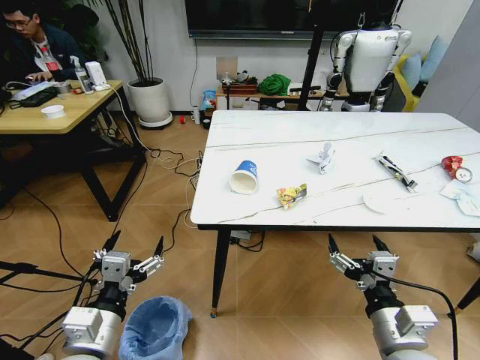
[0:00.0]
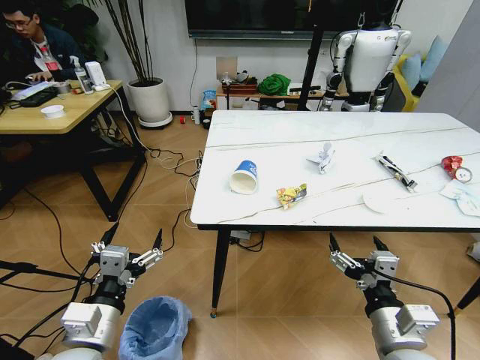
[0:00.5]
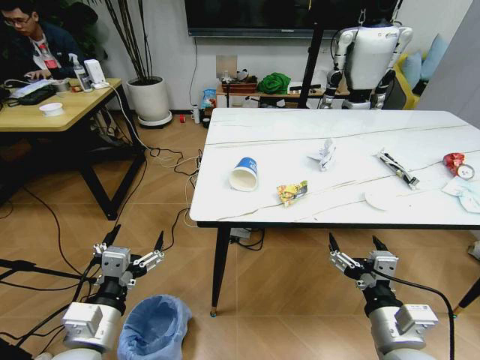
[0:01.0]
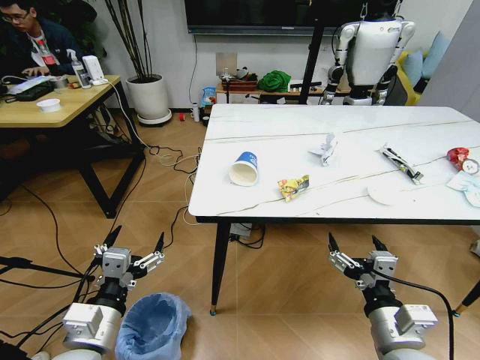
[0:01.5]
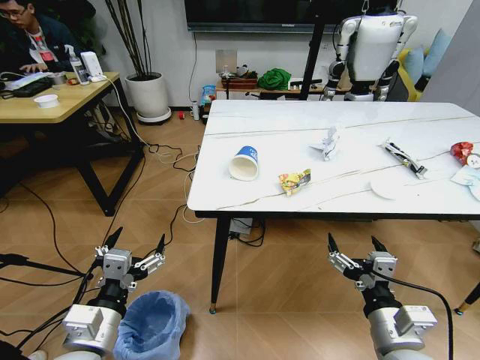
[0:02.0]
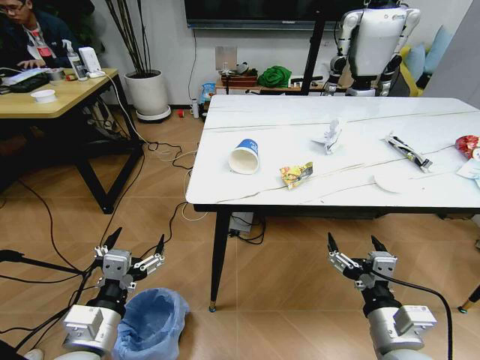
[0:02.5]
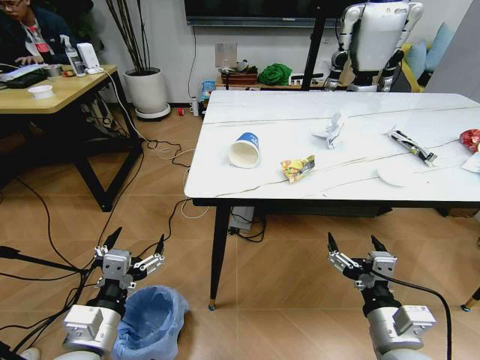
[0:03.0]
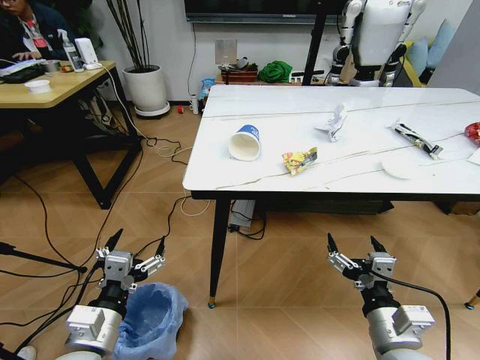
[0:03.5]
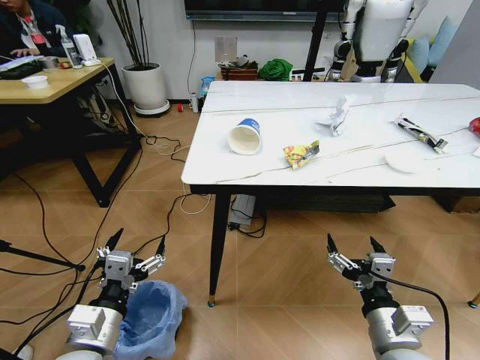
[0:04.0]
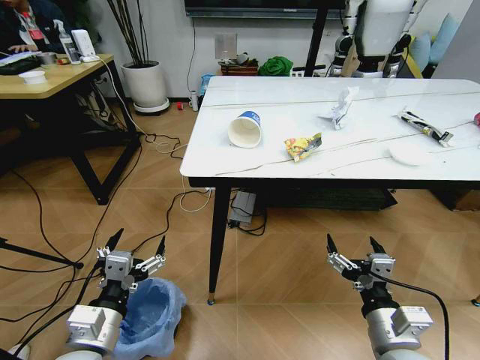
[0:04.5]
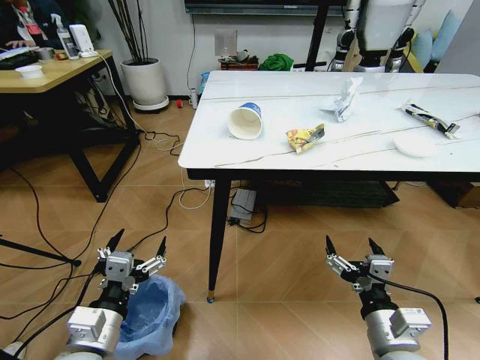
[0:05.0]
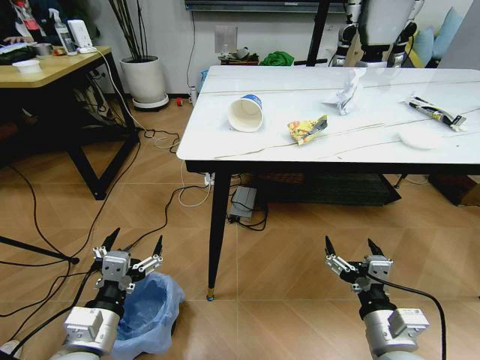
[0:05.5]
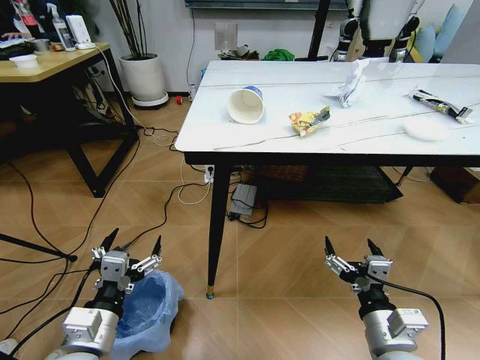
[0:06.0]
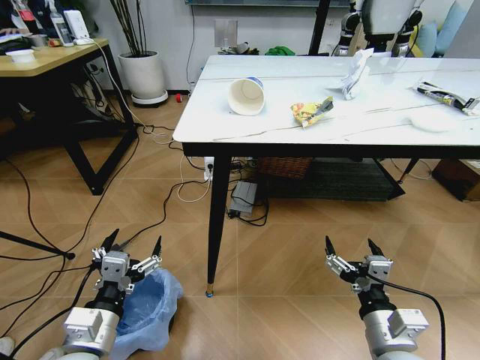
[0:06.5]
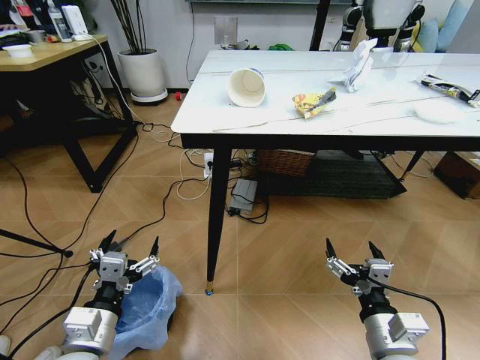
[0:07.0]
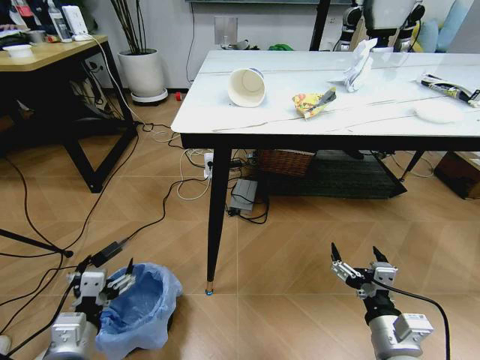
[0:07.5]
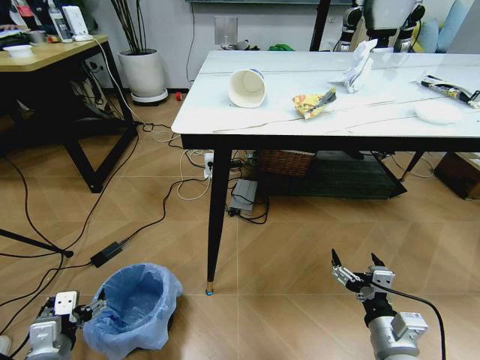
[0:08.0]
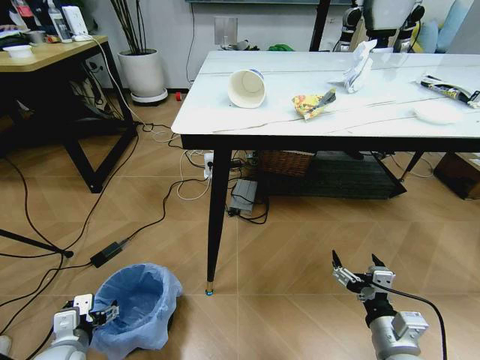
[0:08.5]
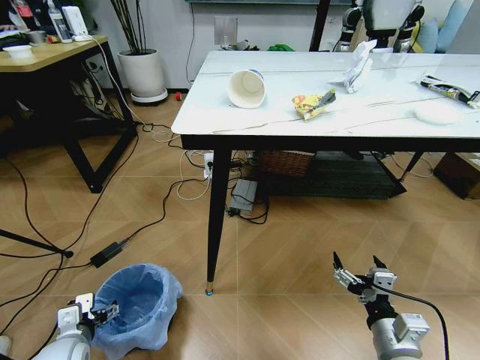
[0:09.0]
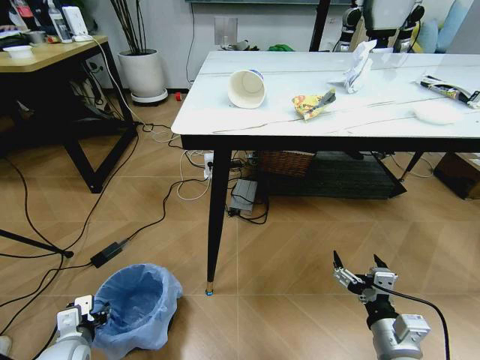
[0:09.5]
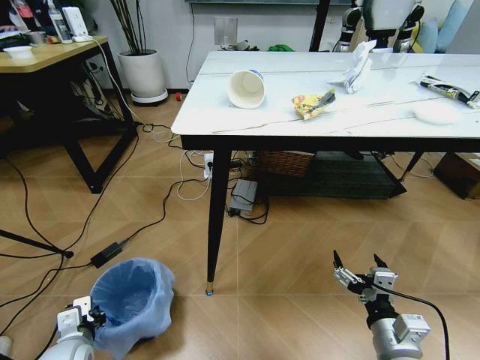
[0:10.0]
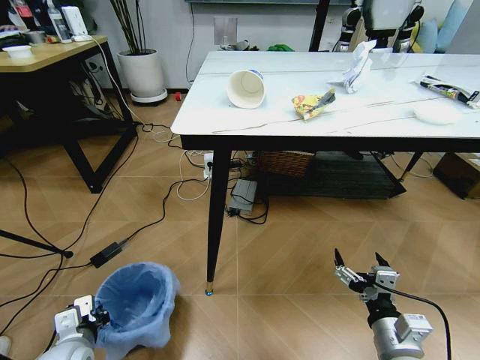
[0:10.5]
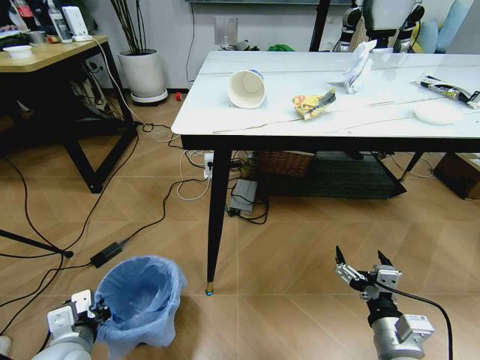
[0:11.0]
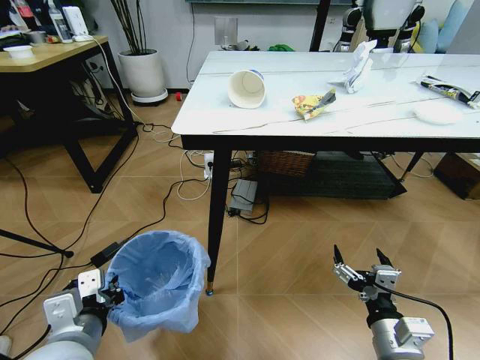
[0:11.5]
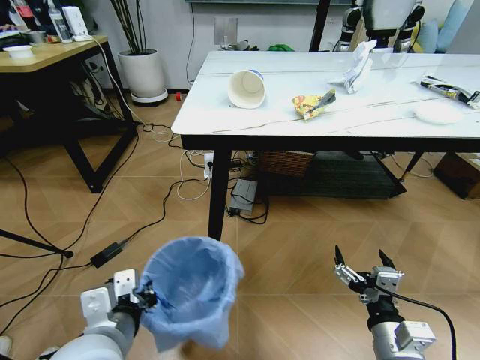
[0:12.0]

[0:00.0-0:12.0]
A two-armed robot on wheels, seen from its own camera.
Task of the whole recording: Pick up the trash bin and place the trash from the table into it.
0:06.0 to 0:08.0: The left gripper heads to the left and downward, covering approximately 15 cm.
0:08.0 to 0:10.0: The left gripper goes roughly 5 cm downward, and closes its fingers.
0:10.0 to 0:12.0: The left gripper shifts some 25 cm upward and to the right.

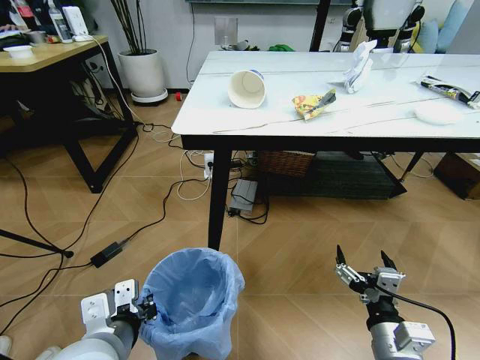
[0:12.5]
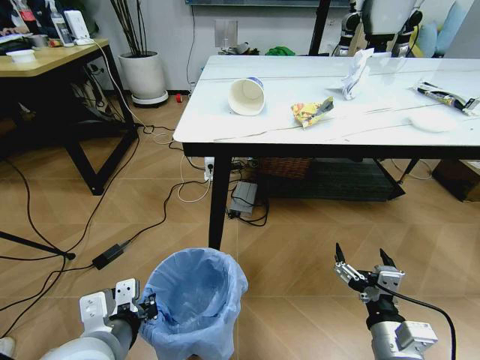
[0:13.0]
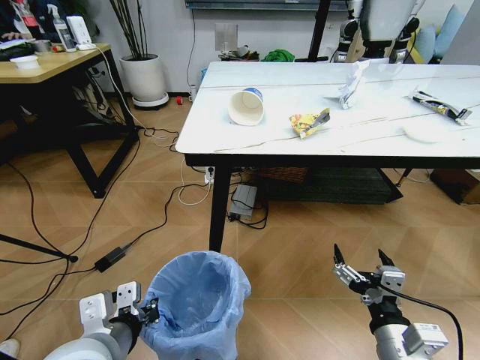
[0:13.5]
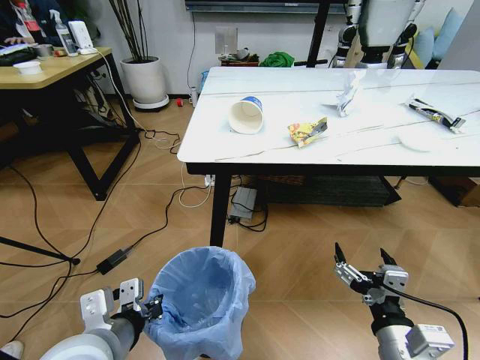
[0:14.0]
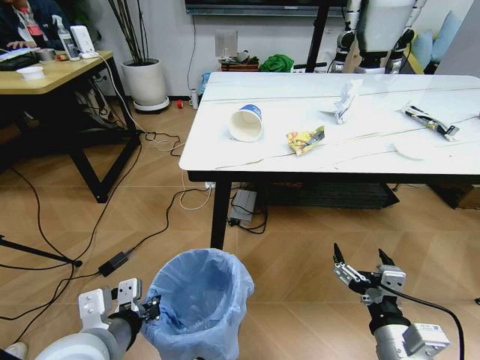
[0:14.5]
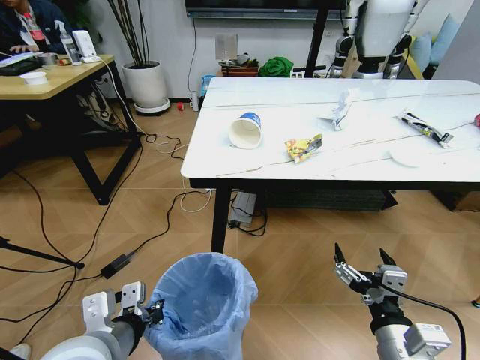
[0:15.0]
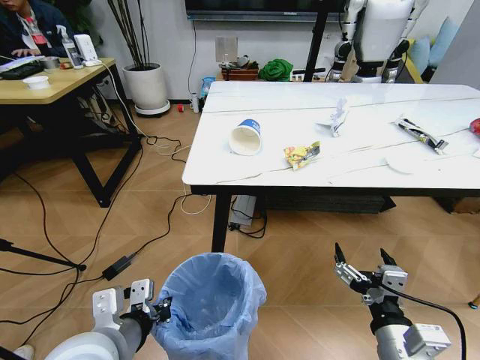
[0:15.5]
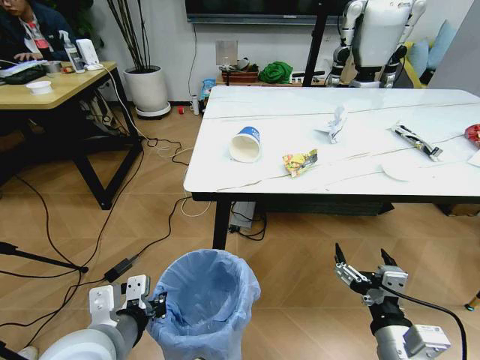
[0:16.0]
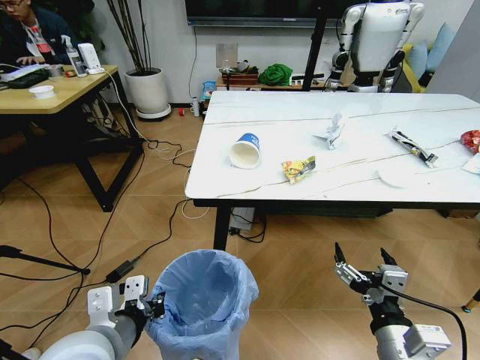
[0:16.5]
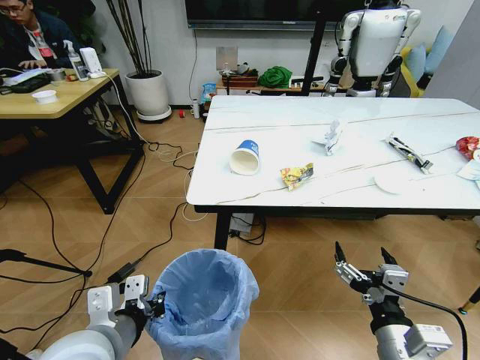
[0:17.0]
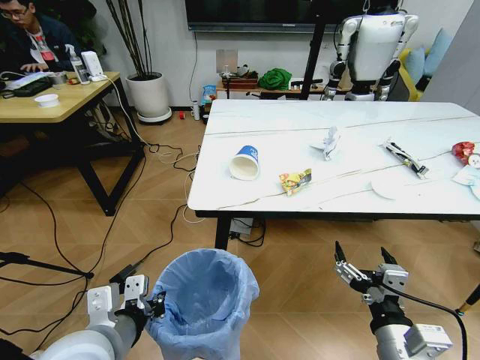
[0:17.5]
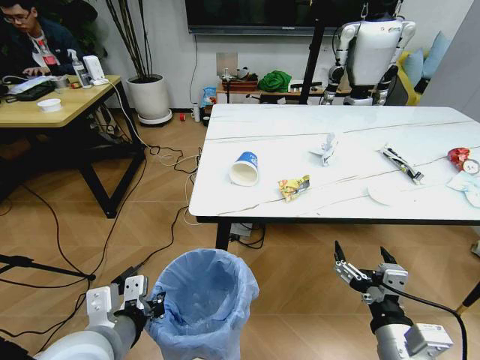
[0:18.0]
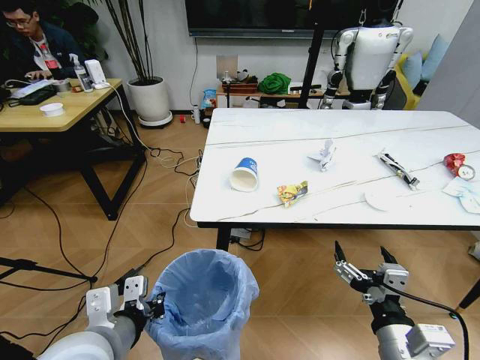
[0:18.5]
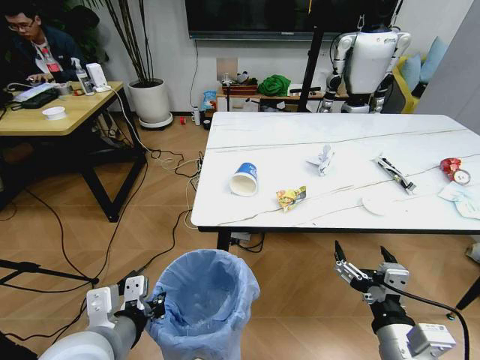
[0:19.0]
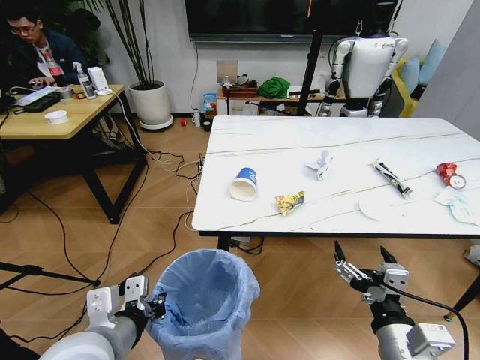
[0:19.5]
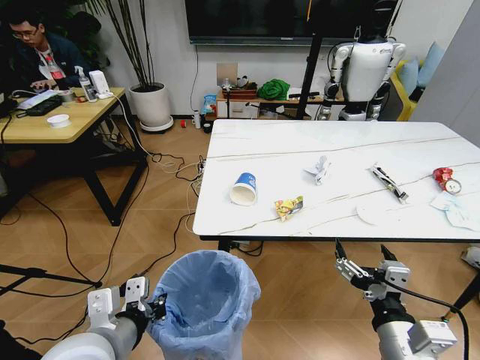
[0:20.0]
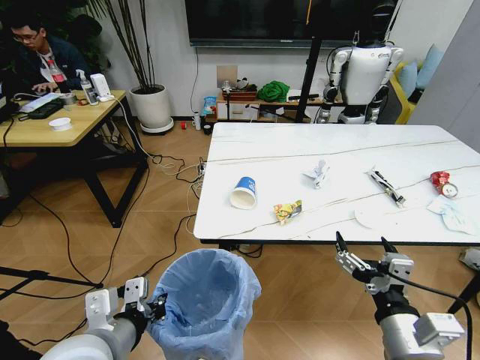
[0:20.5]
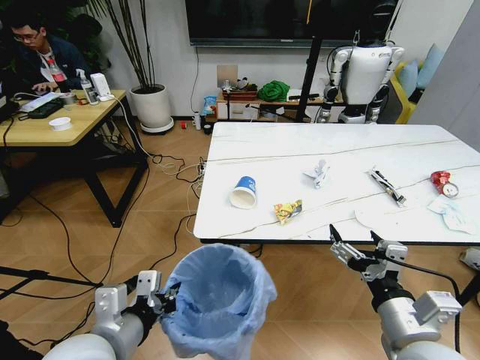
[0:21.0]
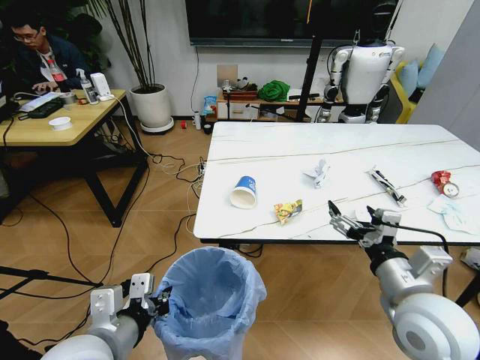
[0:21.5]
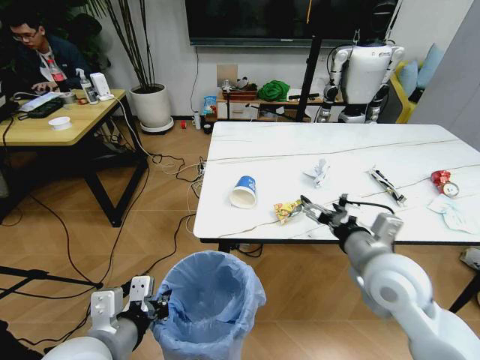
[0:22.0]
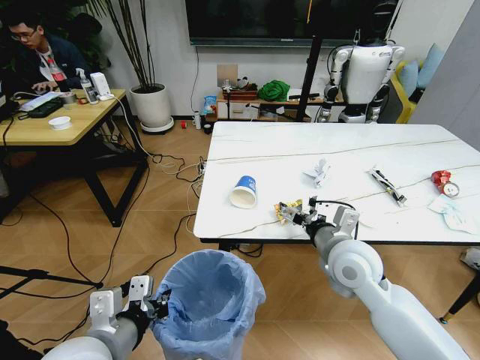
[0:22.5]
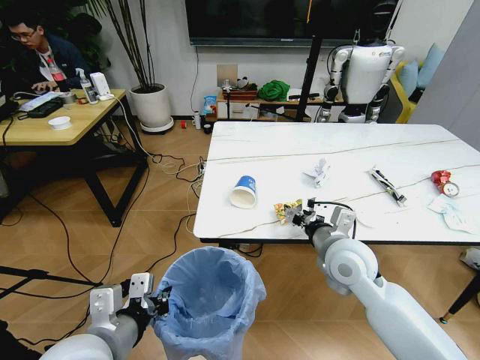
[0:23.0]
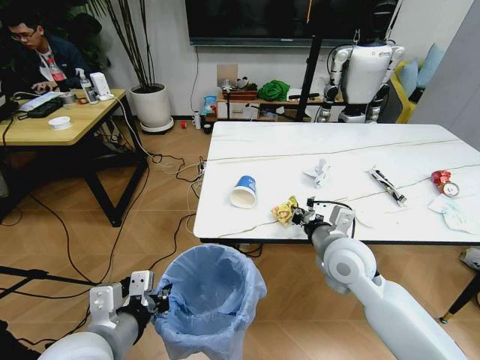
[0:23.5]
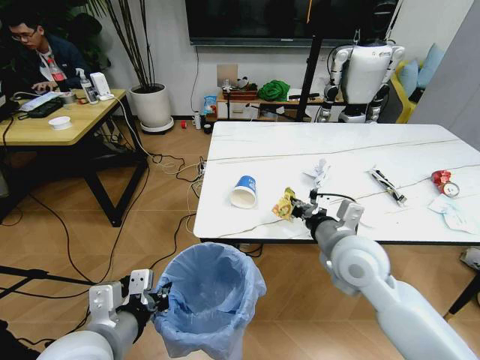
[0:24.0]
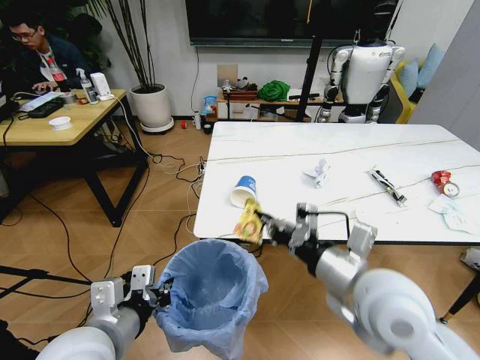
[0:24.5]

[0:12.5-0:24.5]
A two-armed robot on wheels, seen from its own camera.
Task of the whole recording: Pick up the trash bin and place the trash from the table into it.
0:20.5 to 0:22.5: The right gripper is displaced forward by approximately 20 cm.
0:22.5 to 0:24.5: The right gripper goes about 15 cm backward and upward, and closes its fingers.

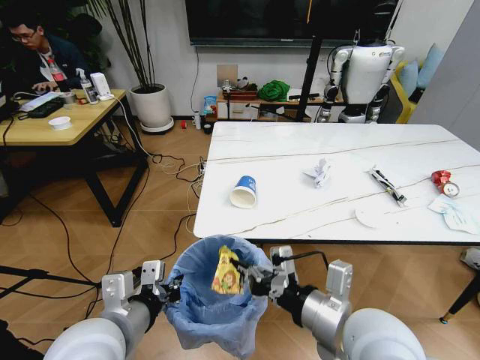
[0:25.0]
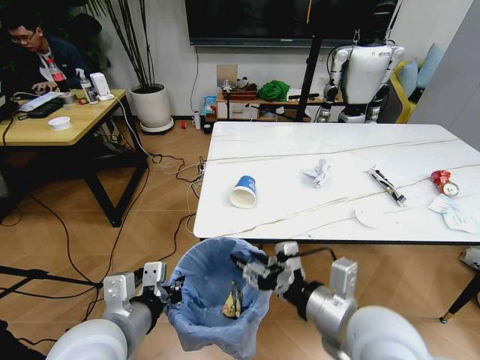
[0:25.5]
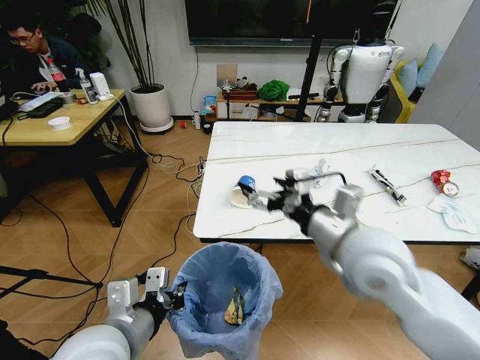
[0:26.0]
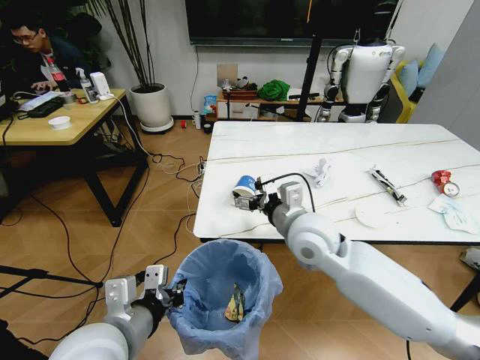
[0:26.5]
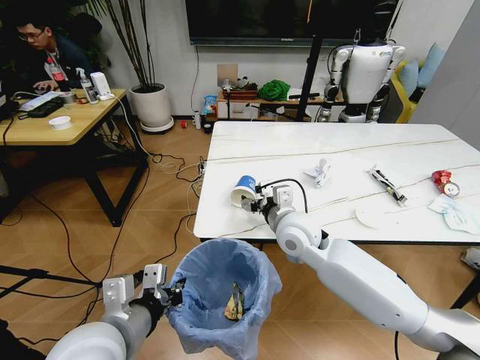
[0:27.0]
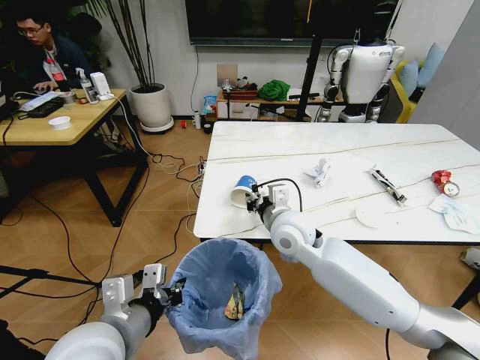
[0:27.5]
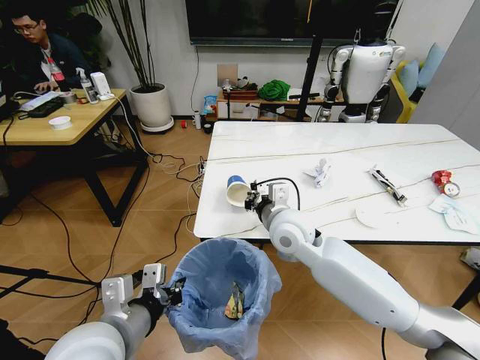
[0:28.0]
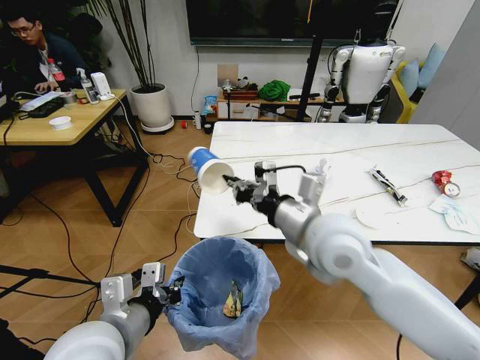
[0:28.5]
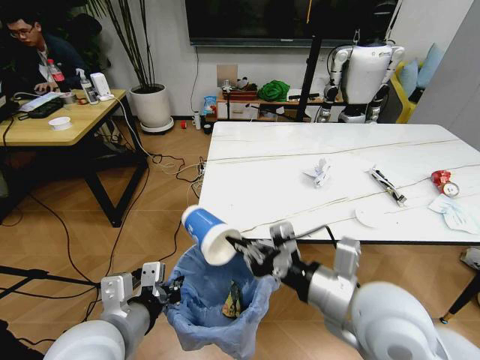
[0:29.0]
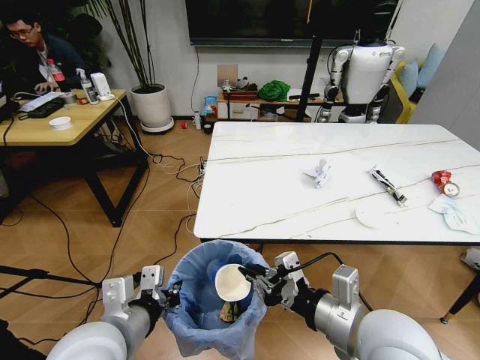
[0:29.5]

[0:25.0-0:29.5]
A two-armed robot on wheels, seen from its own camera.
Task of the whole recording: Pick up the trash bin and place the trash from the table into it.
0:25.0 to 0:27.0: The right gripper travels forward by some 20 cm, and opens up.
0:27.0 to 0:29.5: The right gripper shifts about 20 cm backward, and closes its fingers.
